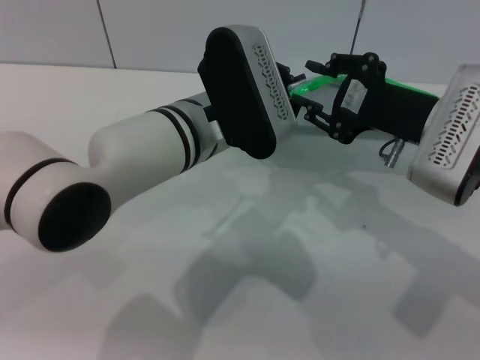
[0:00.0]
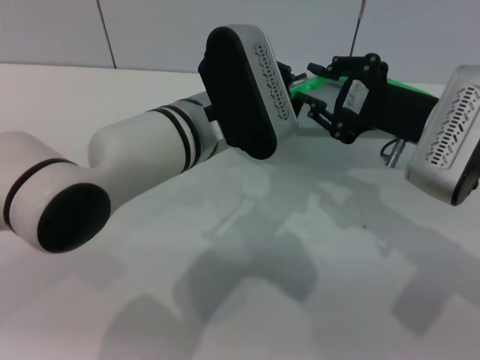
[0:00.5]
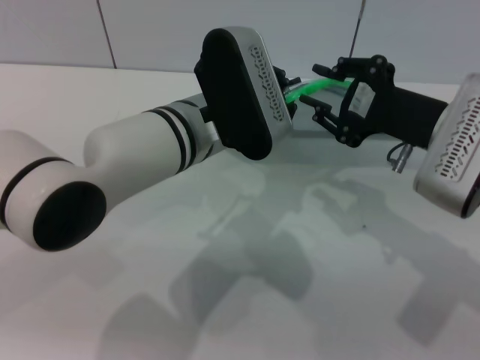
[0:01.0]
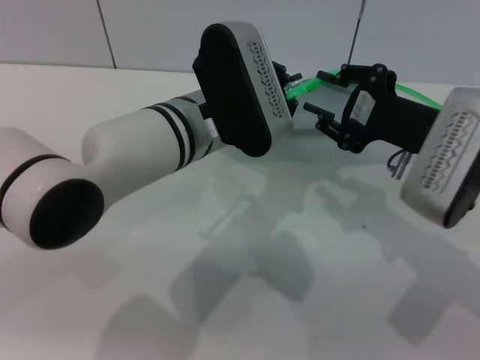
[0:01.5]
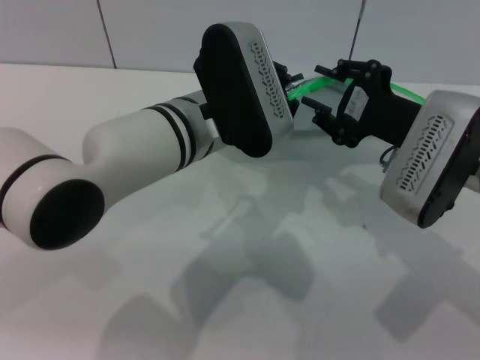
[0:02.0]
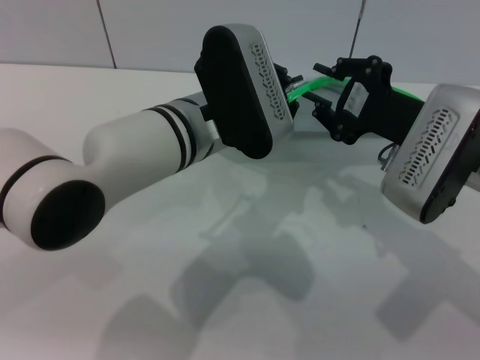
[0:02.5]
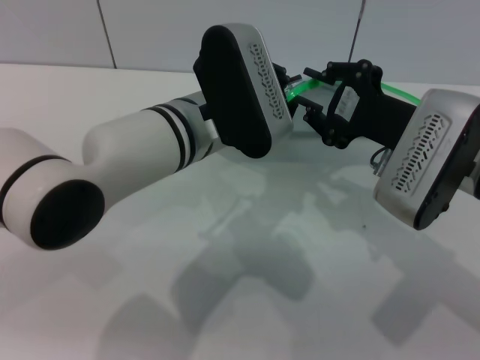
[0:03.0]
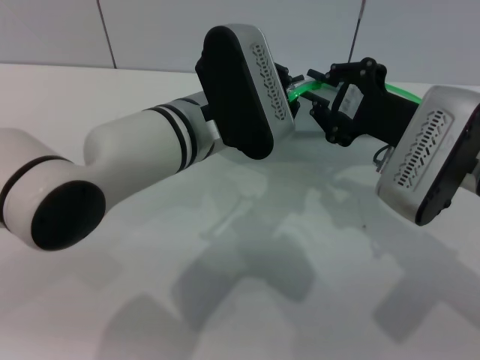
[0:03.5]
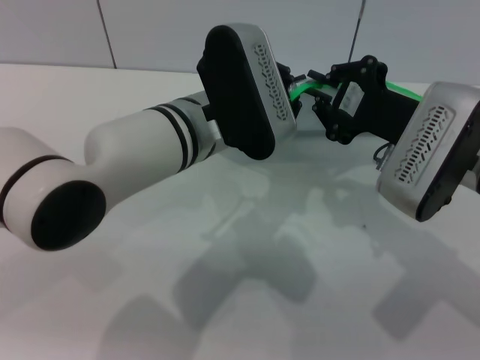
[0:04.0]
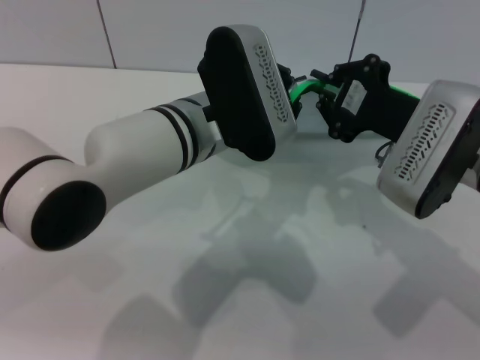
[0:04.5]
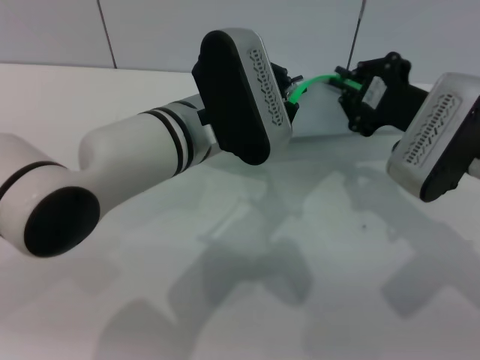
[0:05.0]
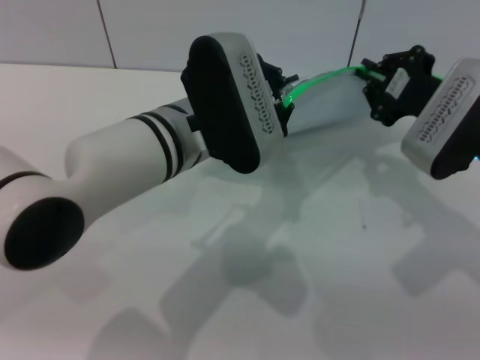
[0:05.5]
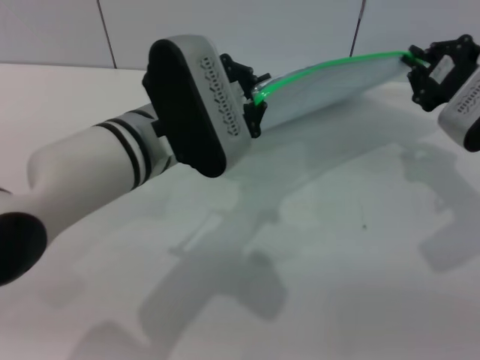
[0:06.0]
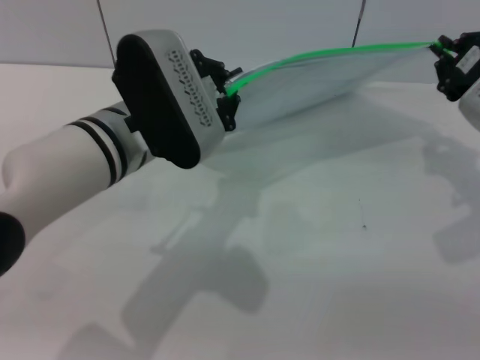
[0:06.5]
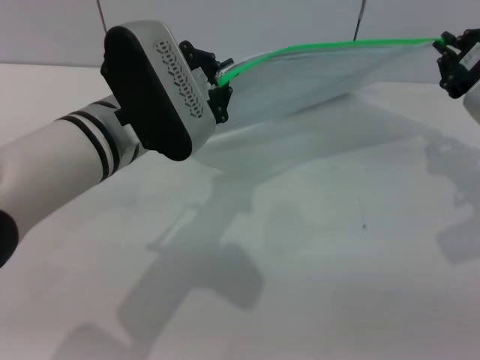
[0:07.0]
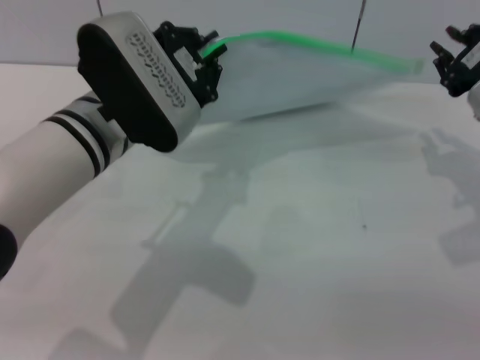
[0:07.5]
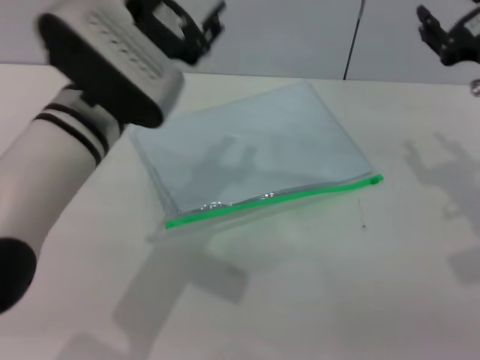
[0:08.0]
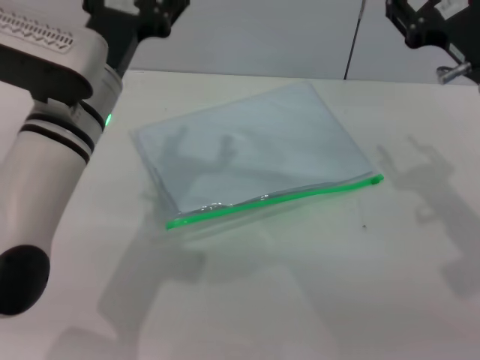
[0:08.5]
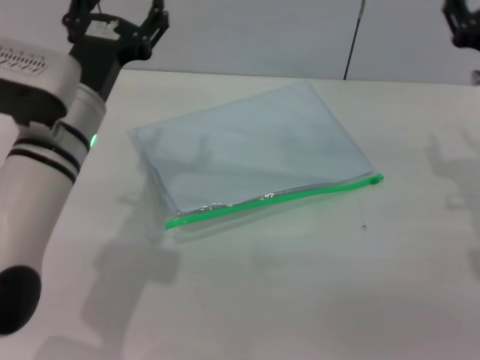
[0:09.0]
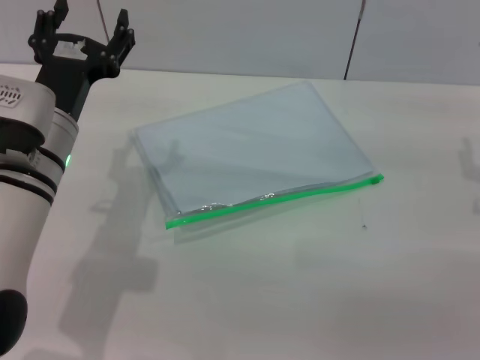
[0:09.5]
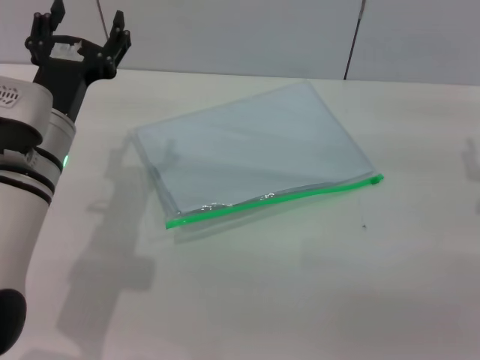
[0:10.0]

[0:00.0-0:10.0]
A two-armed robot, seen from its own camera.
Step, 0:00.0 to 0:07.5: Pulling up the zipper on the transparent plastic bag with the right gripper to close it.
Step, 0:08.0 to 0:09.0: Place the transparent plastic bag.
0:00.0 to 0:02.0: The grippers stay close to where they were, moving slightly.
0:02.0 to 0:04.0: The right gripper closes.
0:04.0 to 0:06.0: The right gripper is displaced to the right by approximately 5 cm.
0:06.0 to 0:08.0: The left gripper opens. The right gripper opens its fingers.
0:08.0 to 0:10.0: The left gripper travels downward and to the left by some 10 cm, and opens its fingers, while the right gripper heads downward, covering roughly 5 cm.
